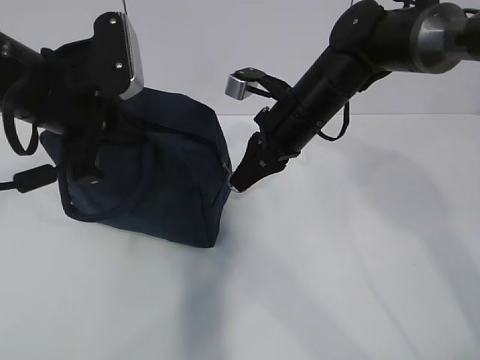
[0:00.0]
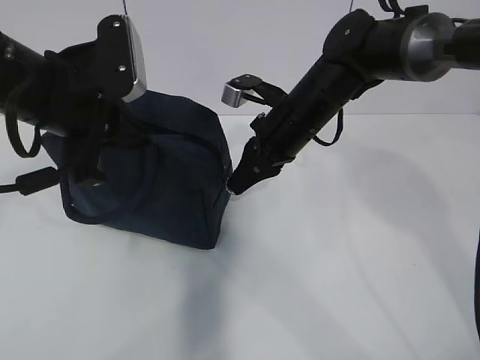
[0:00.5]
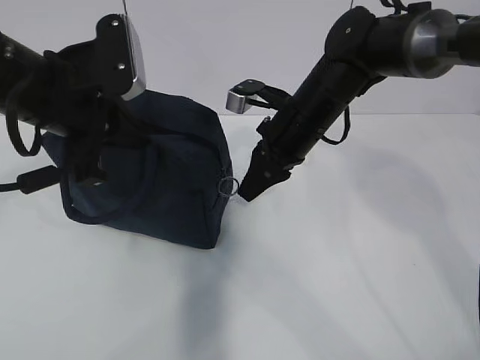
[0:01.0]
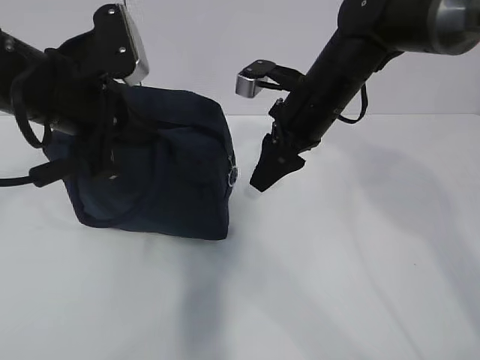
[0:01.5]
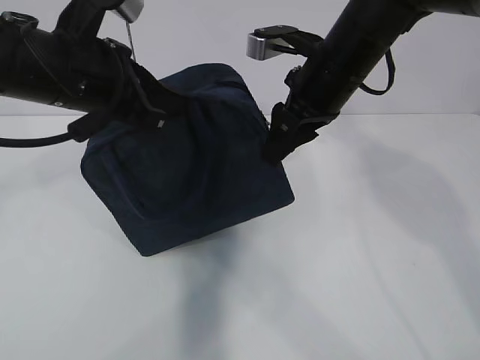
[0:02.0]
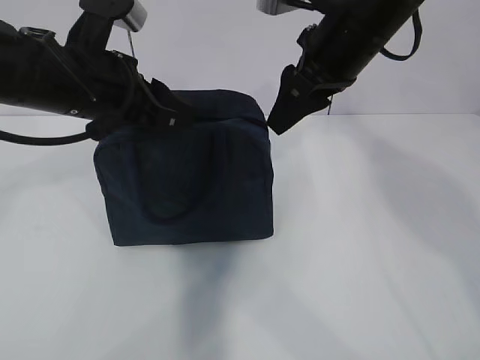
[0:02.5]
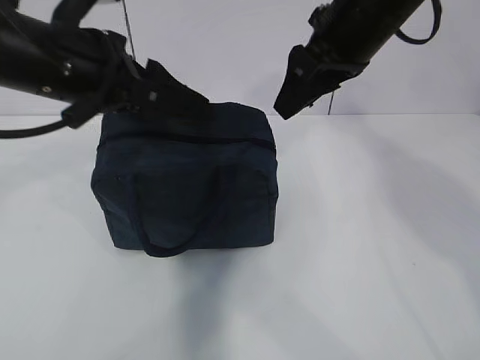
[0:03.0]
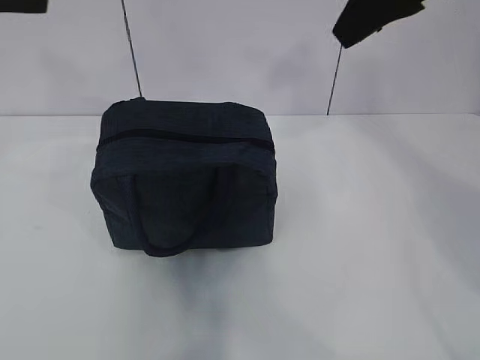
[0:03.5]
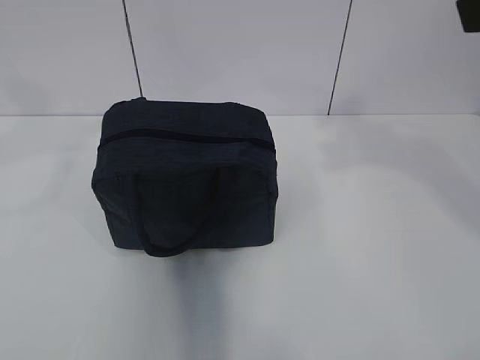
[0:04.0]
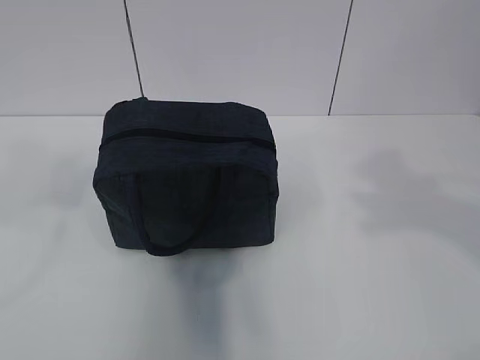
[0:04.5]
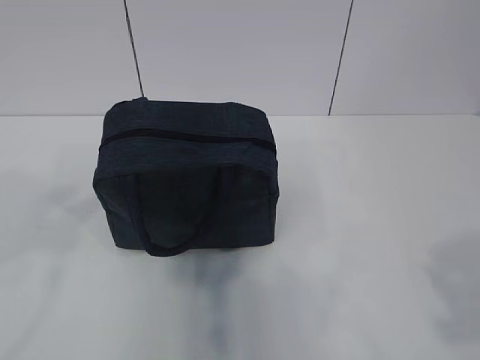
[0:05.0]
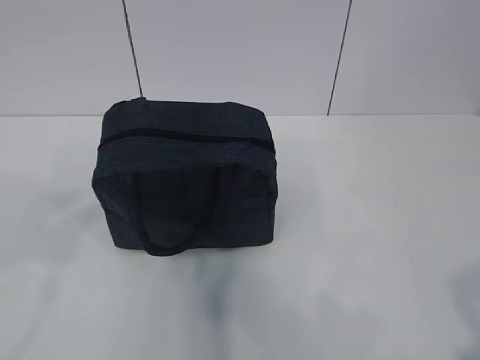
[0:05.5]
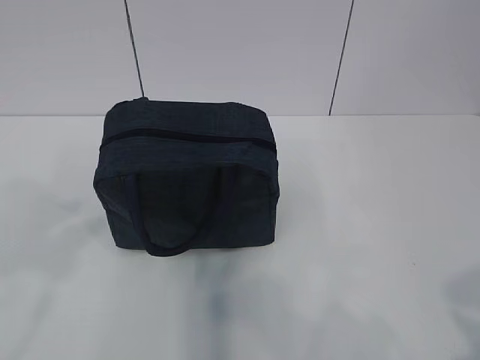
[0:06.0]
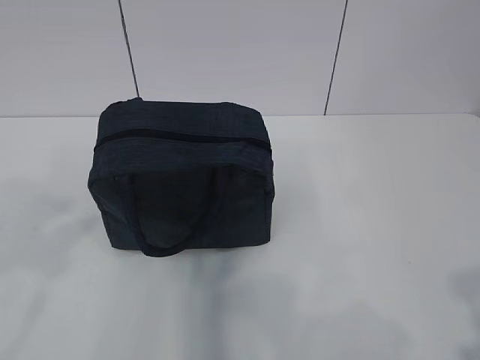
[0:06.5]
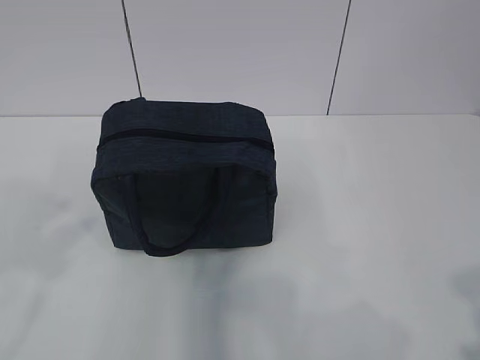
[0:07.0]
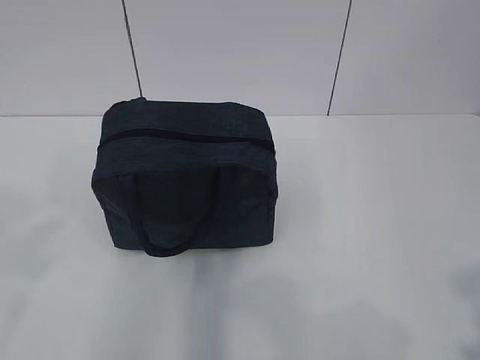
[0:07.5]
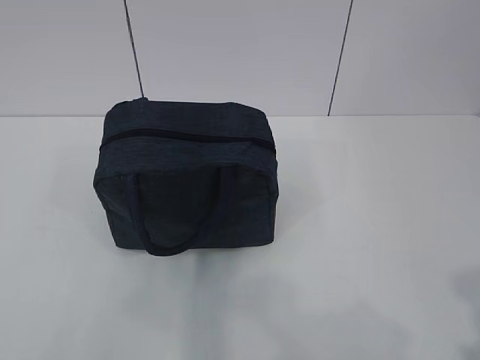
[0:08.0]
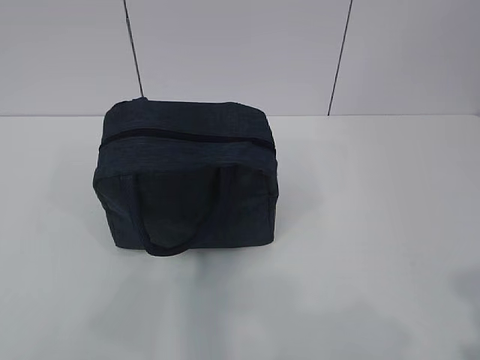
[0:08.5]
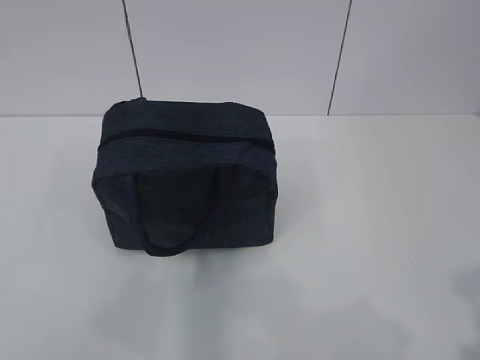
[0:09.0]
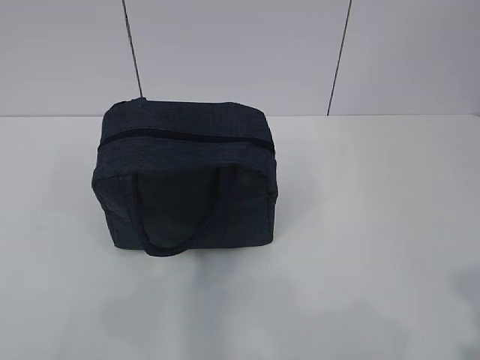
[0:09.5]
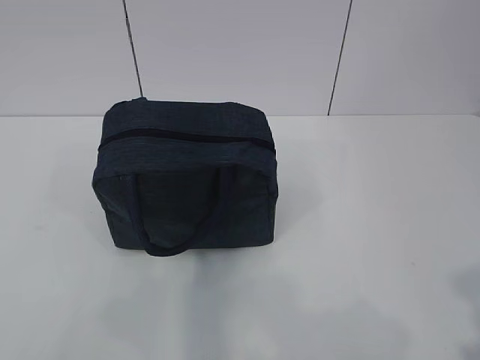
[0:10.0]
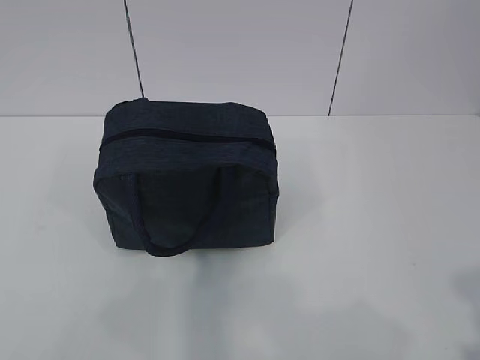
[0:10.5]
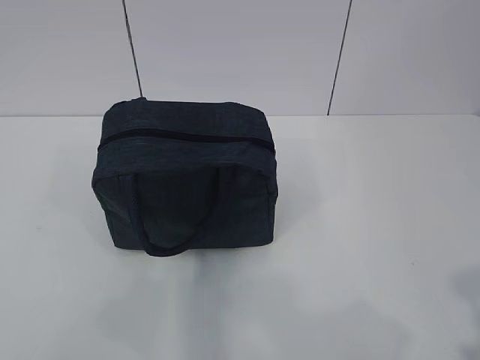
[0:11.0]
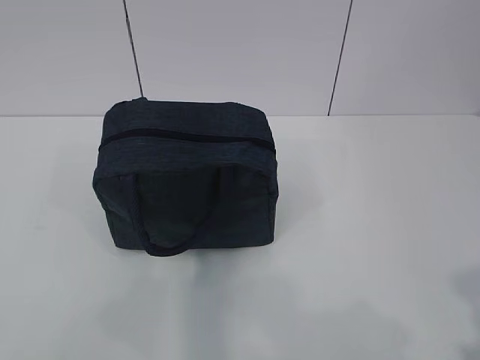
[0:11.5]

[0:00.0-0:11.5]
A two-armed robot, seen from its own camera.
0:00.0 to 0:02.0: The right gripper travels upward by roughly 5 cm, and opens its fingers.
0:02.0 to 0:04.0: The right gripper heads backward, upward and to the right, covering about 30 cm; the left gripper shifts approximately 20 cm to the left, upward and backward, and opens up.
0:04.0 to 0:06.0: The right gripper heads backward and downward, covering about 25 cm, while the left gripper is displaced backward and downward by approximately 15 cm.
0:06.0 to 0:07.5: The grippers stay close to where they were, moving slightly.
0:09.5 to 0:11.5: Both grippers stay put.

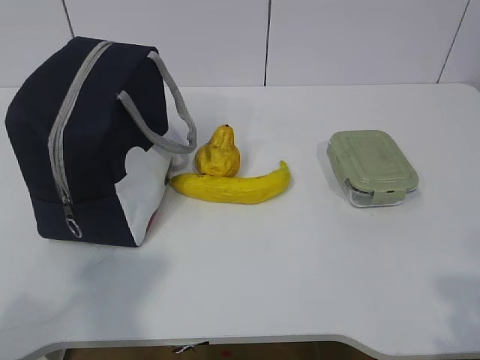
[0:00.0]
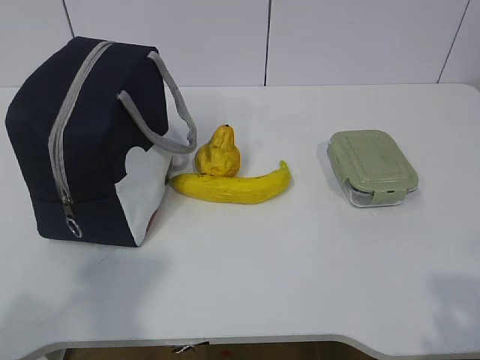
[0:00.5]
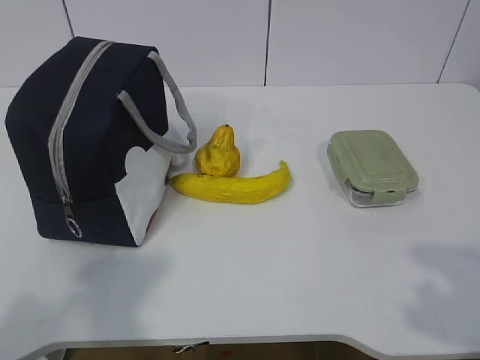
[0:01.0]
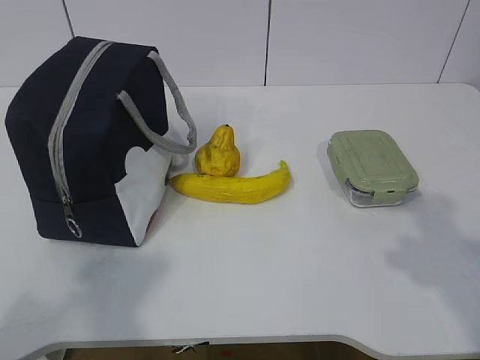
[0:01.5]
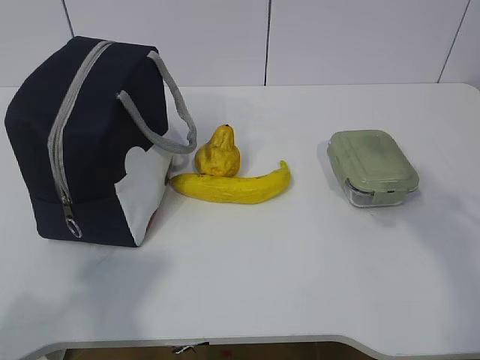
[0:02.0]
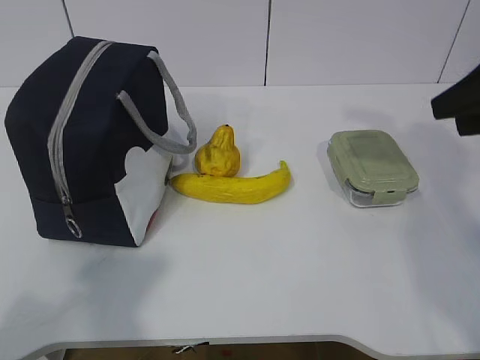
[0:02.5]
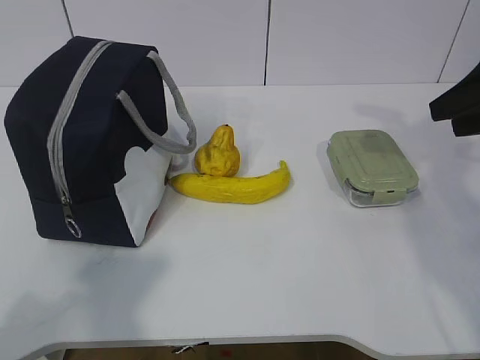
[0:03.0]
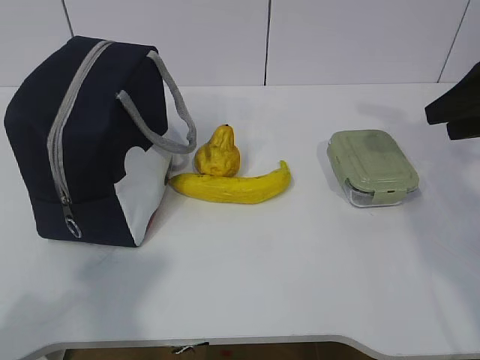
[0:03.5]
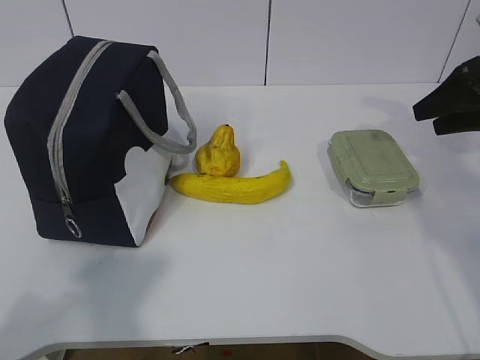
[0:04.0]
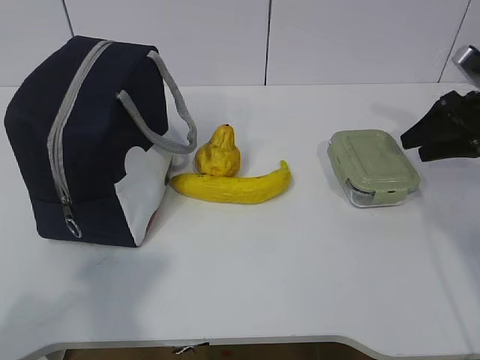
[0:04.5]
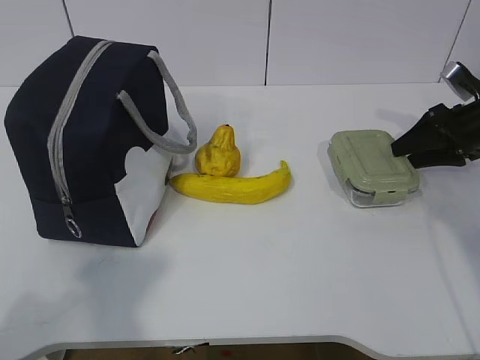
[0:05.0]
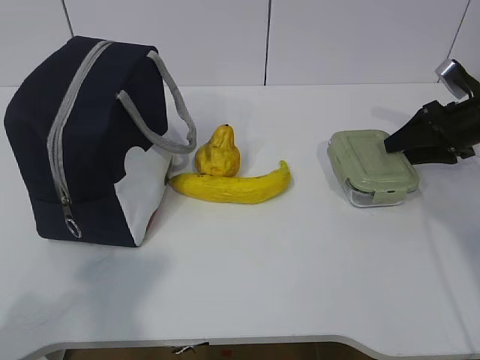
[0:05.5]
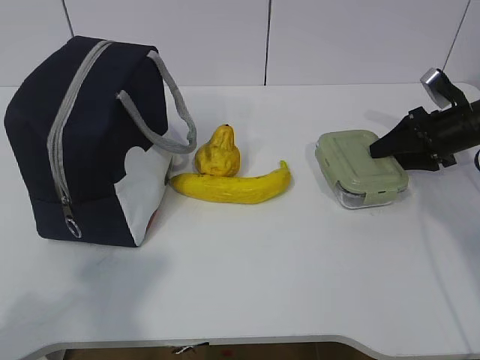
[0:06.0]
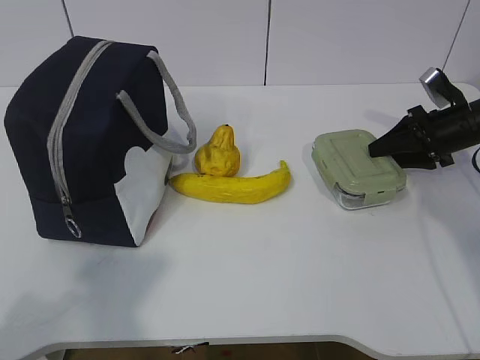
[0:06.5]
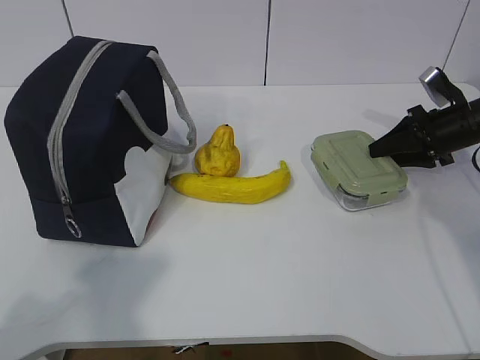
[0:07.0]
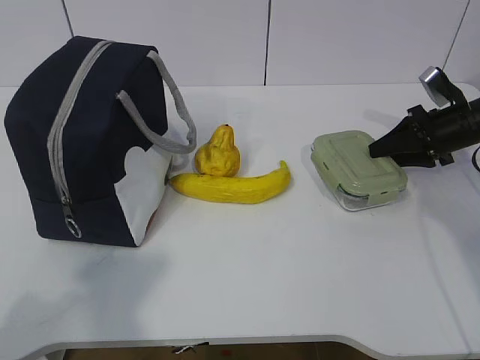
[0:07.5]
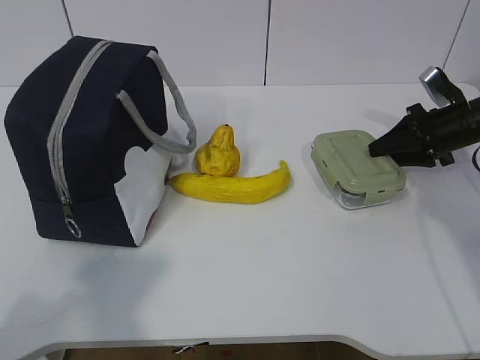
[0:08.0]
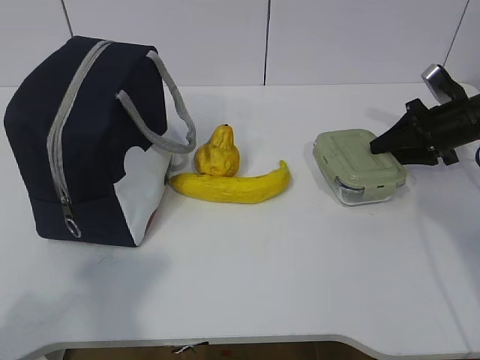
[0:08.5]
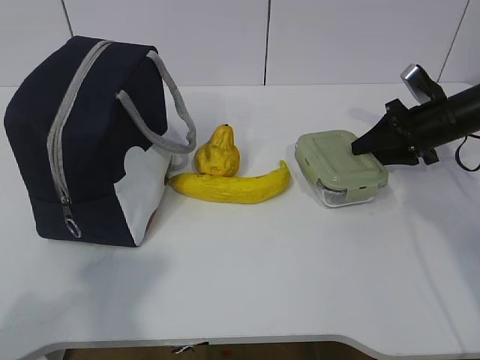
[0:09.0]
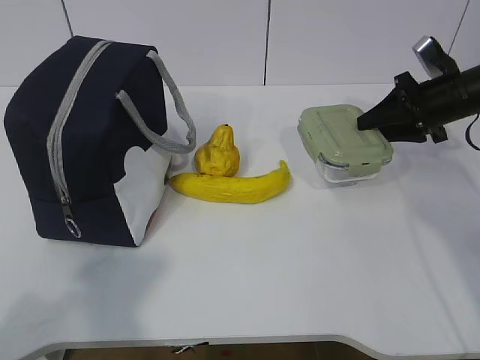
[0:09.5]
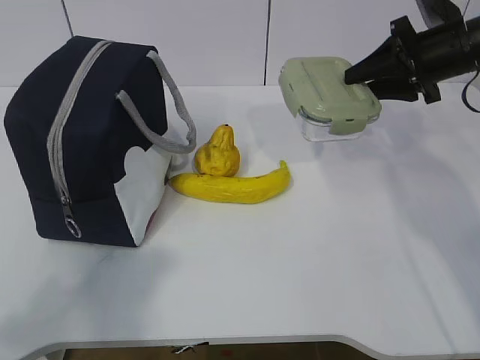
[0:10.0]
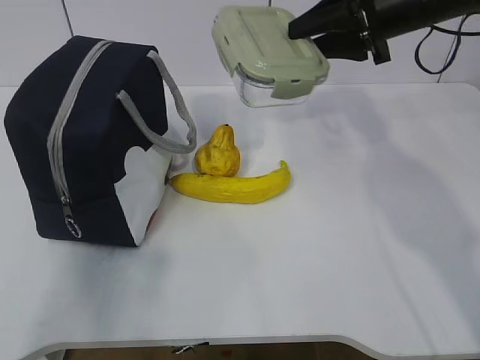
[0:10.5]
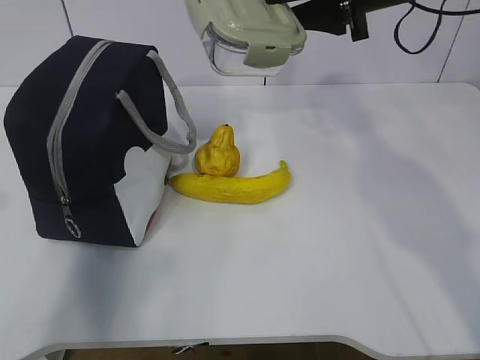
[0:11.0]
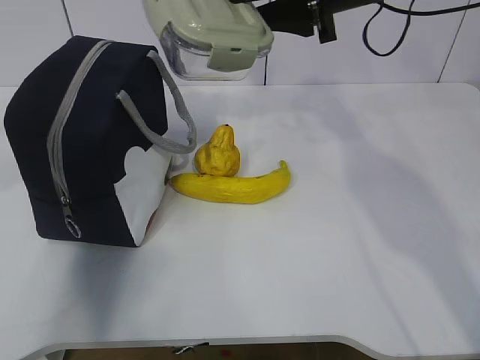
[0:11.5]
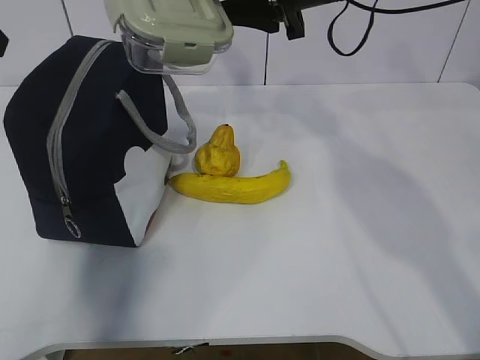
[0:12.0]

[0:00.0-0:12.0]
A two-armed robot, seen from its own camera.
Step, 0:00.0 to 0:07.0: Grab the lunch box with your right hand.
Step, 0:07.5 to 0:10.5: Grab the lunch bag with your left hand.
0:02.0 to 0:04.0: The right gripper travels forward by roughly 20 cm.
0:04.0 to 0:06.0: The right gripper goes roughly 10 cm downward and forward.
0:06.0 to 0:08.0: Both grippers stay put.
0:08.0 to 0:10.0: The right gripper moves upward and to the left, some 15 cm.
0:10.0 to 0:12.0: The left gripper heads forward, covering approximately 30 cm; the right gripper moves to the left and upward, approximately 20 cm.

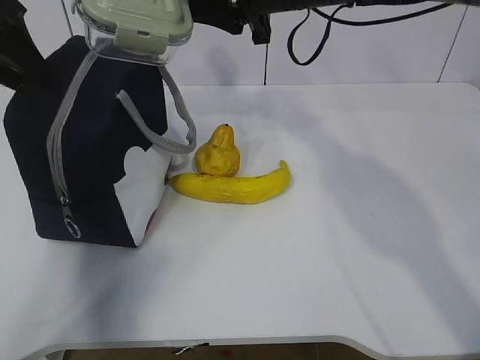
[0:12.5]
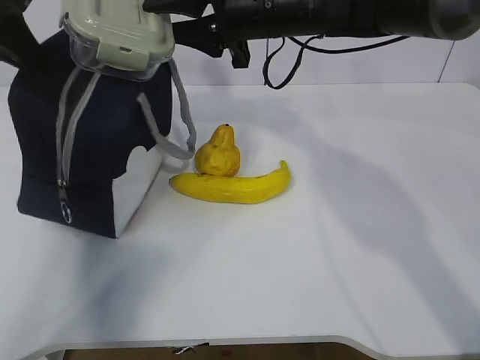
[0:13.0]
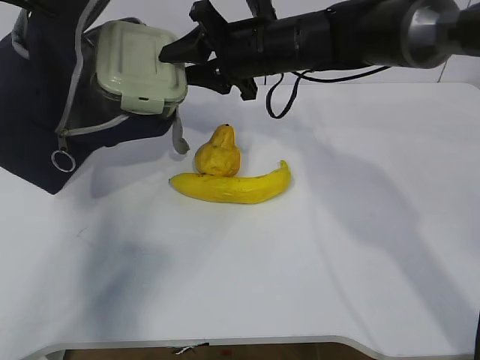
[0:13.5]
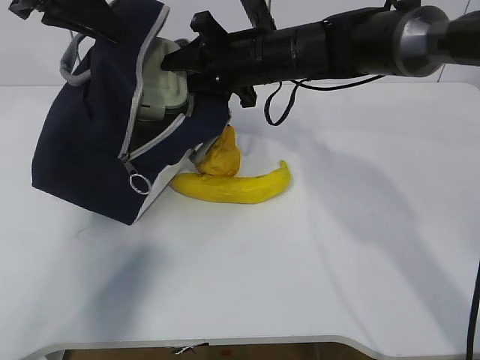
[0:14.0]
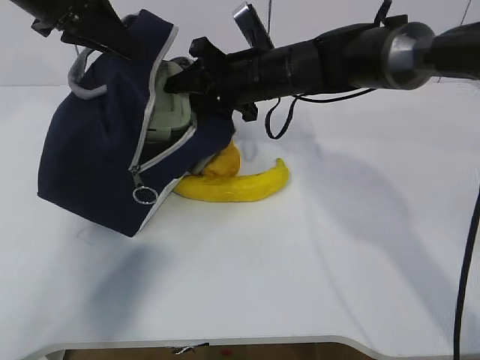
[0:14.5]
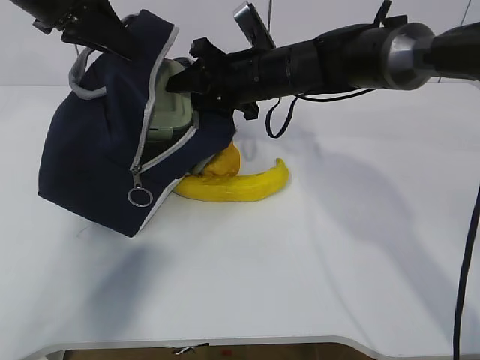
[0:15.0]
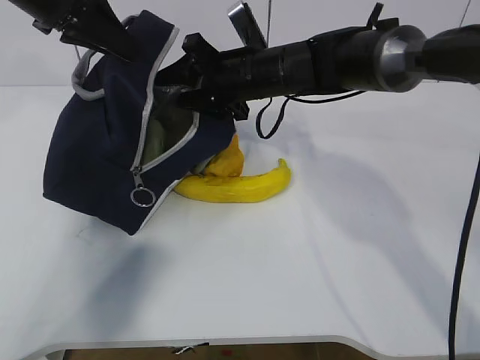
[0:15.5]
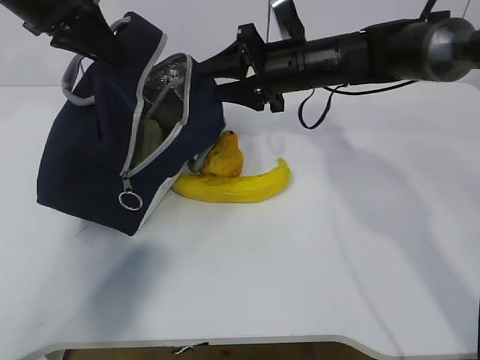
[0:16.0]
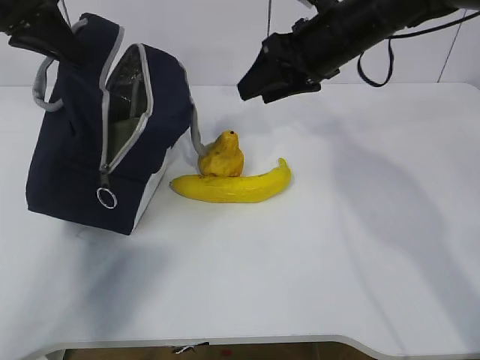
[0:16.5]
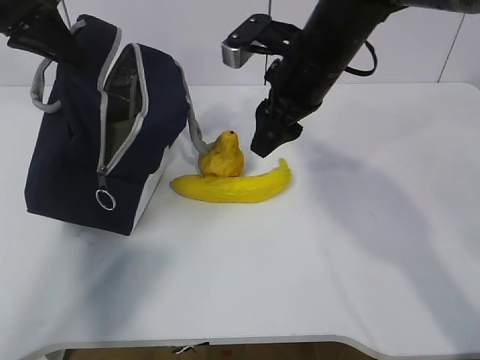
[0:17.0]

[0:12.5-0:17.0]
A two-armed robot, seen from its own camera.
Step, 0:13.5 to 0:16.5: Grab the banana with your right hand.
0:12.5 to 0:14.5: The right gripper shifts approximately 10 cm downward. The left gripper moves to the right, some 10 cm, and closes.
0:14.5 to 0:17.0: The left gripper heads to the left, covering about 5 cm; the right gripper goes roughly 5 cm backward.
